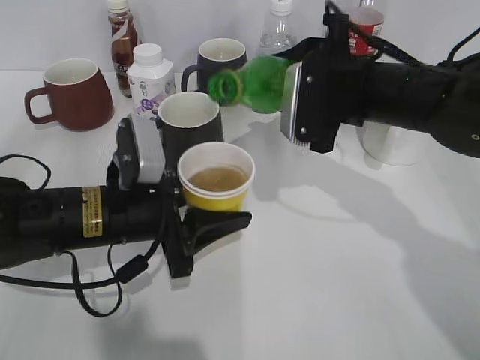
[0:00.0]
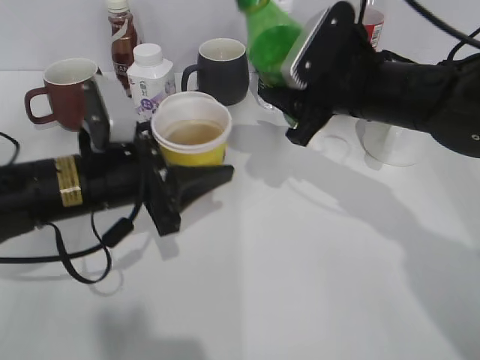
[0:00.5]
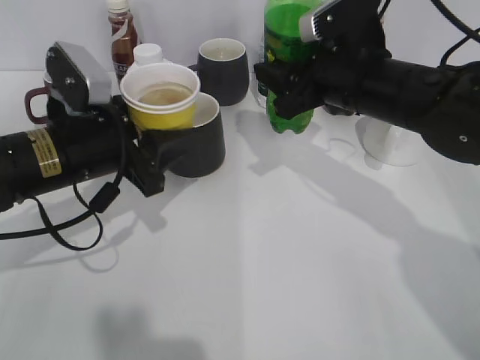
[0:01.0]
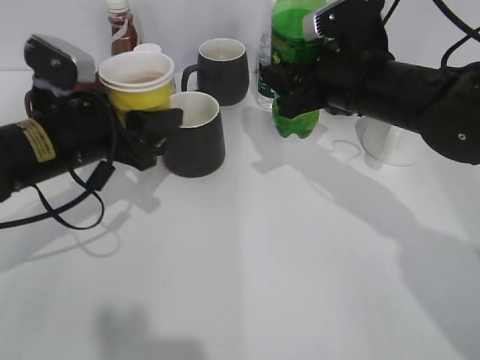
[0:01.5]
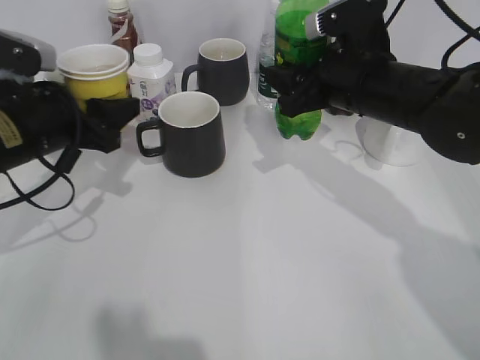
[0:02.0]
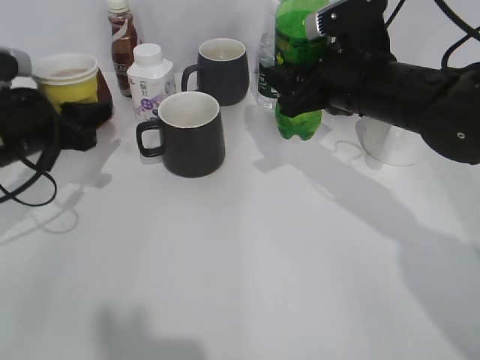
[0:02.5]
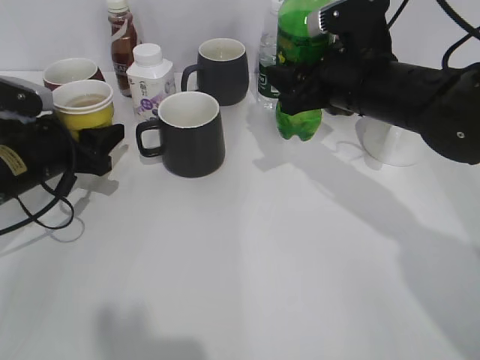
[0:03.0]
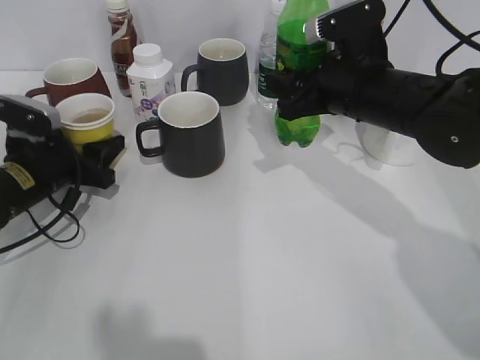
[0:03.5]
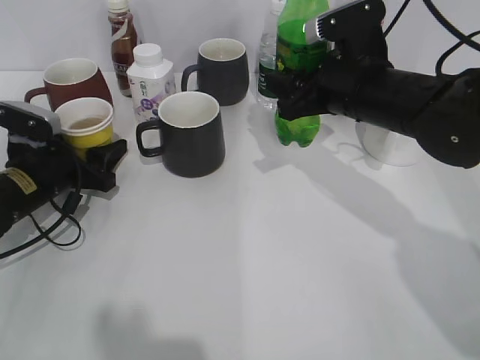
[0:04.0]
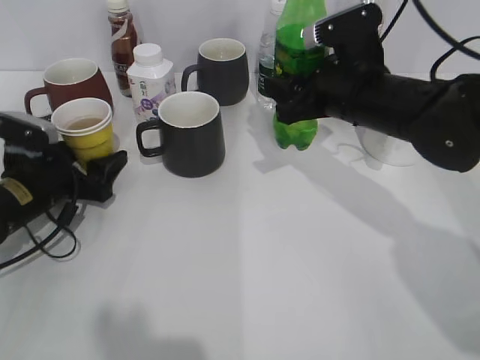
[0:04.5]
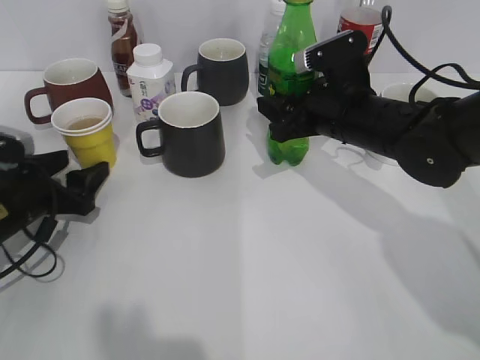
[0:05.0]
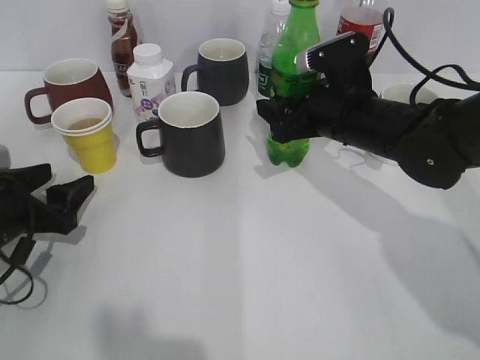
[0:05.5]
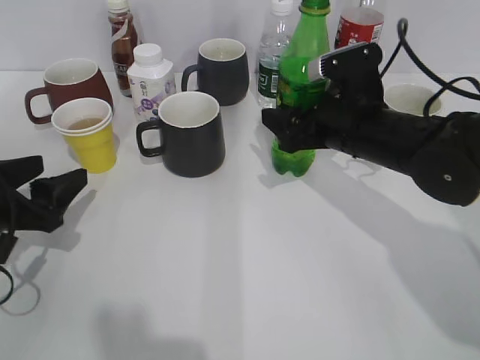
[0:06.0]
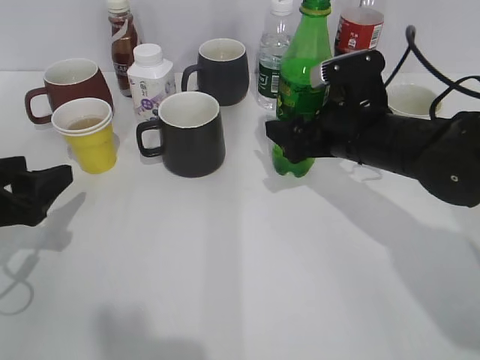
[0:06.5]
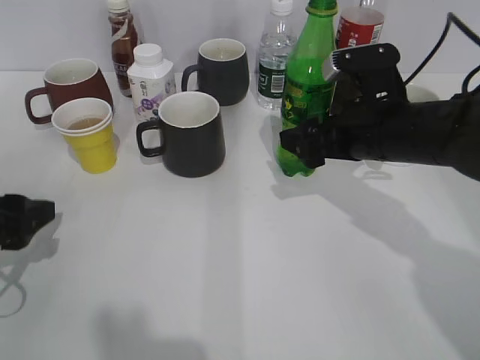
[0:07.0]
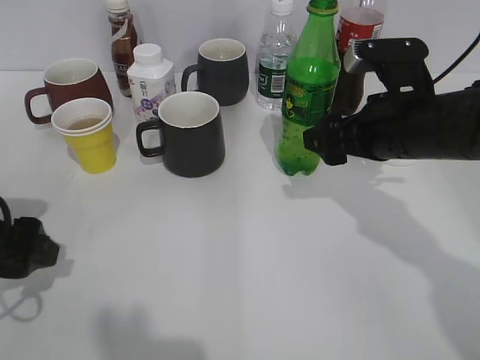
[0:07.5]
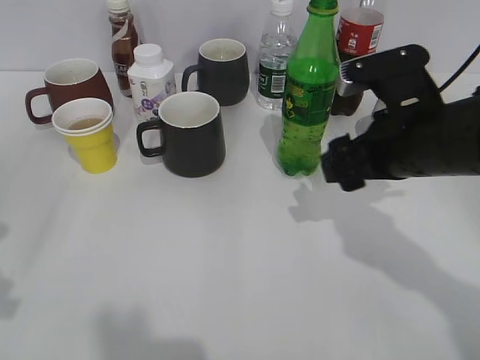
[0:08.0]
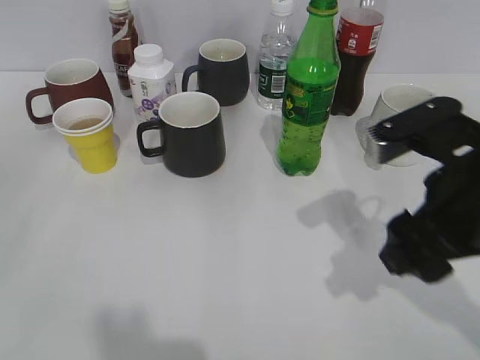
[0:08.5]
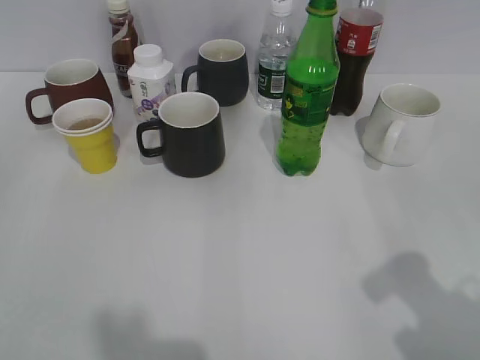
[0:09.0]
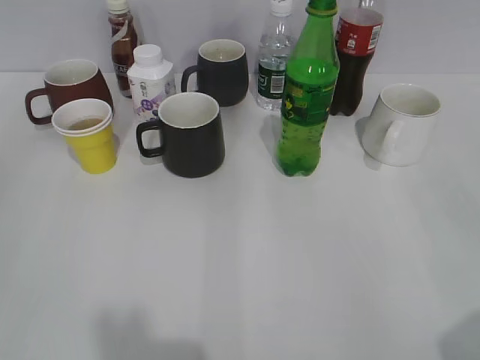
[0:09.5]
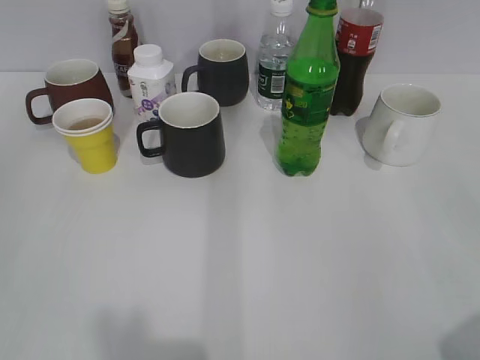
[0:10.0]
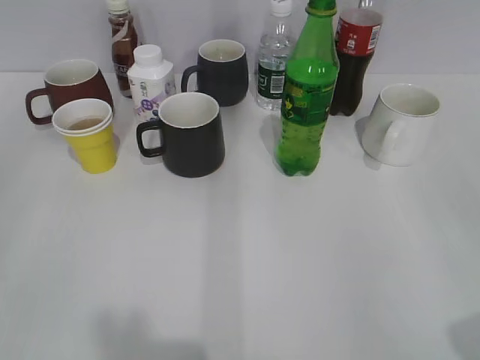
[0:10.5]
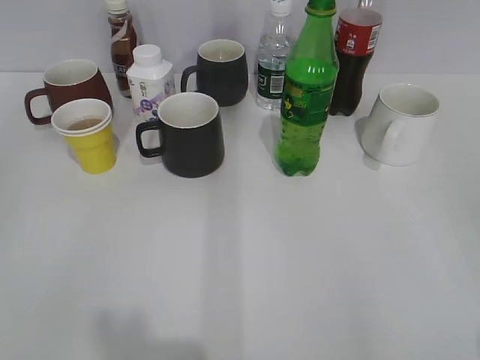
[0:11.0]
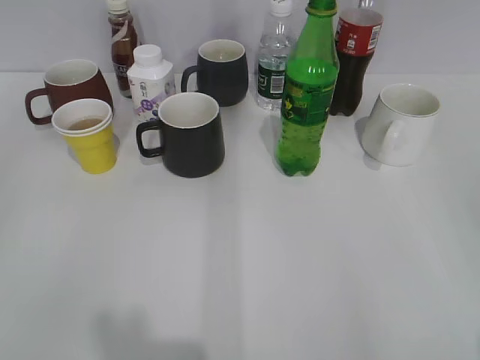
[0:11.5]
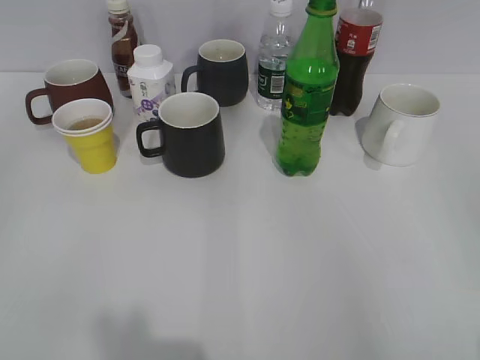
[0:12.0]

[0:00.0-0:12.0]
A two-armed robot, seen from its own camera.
Step, 0:00.0 to 0:03.5: Place the yellow paper cup on the table with left gripper.
Step, 0:04.0 to 0:07.0: Place the sprite bottle on the table with right gripper.
0:00.0 to 0:02.0: The left gripper travels to the left, upward and forward by roughly 10 cm.
0:02.0 to 0:04.0: The left gripper heads downward, covering roughly 10 cm, and opens its fingers.
0:04.0 to 0:06.0: The right gripper opens up. The left gripper shifts some 10 cm backward, and opens.
0:06.0 to 0:08.0: The right gripper is displaced backward by roughly 5 cm, and opens, then closes once more, while the left gripper travels upward and backward by approximately 15 cm.
0:08.0 to 0:10.0: The right gripper shifts approximately 30 cm backward and to the right, and closes.

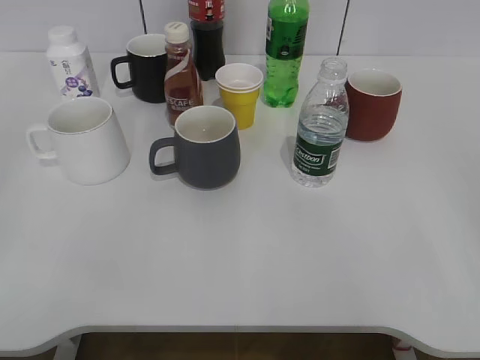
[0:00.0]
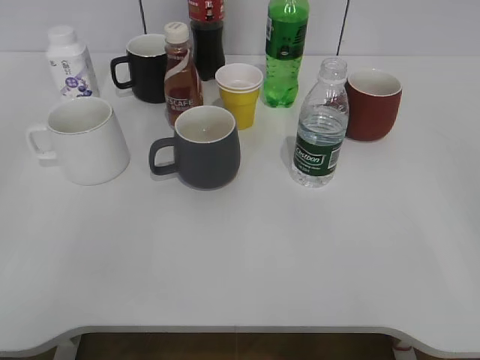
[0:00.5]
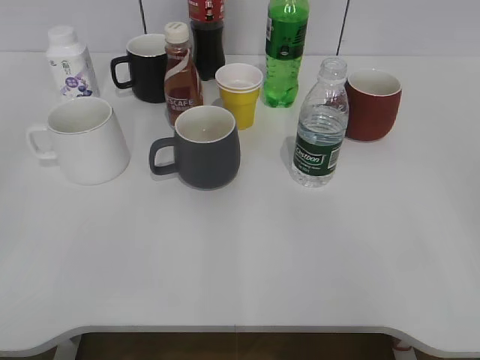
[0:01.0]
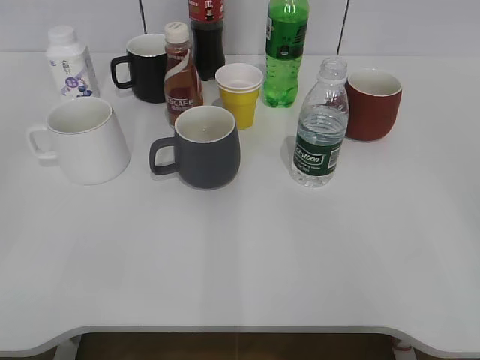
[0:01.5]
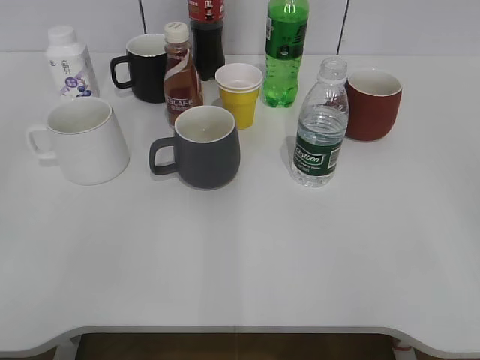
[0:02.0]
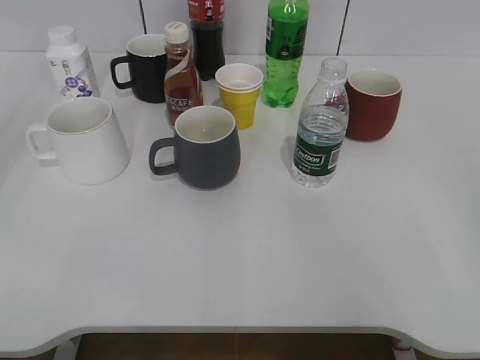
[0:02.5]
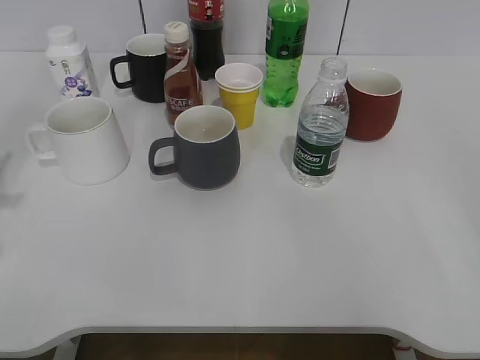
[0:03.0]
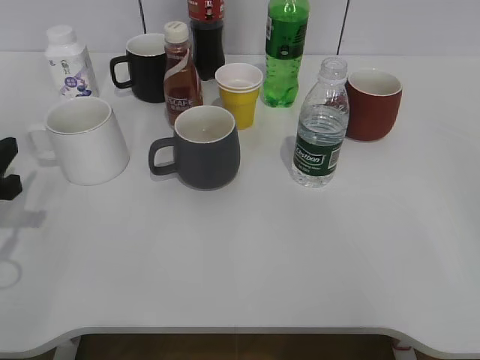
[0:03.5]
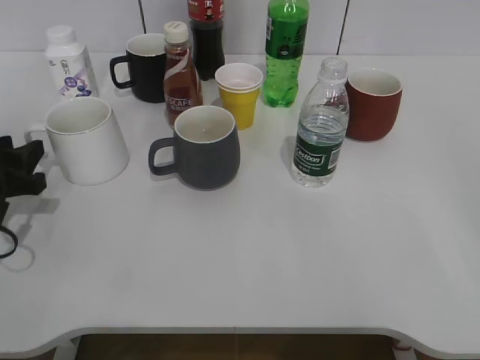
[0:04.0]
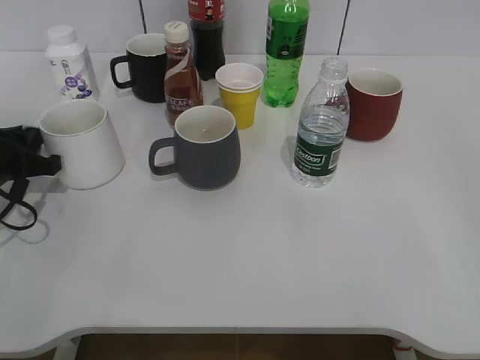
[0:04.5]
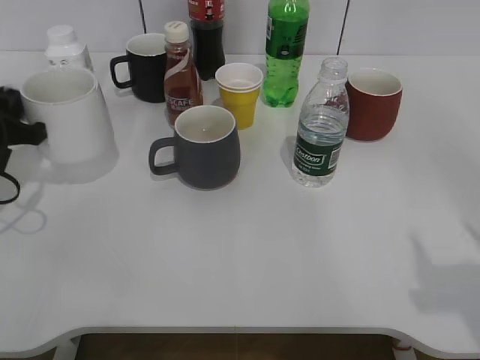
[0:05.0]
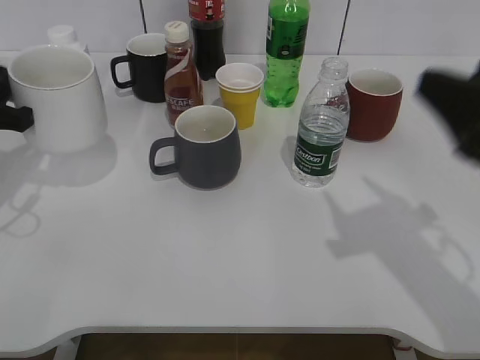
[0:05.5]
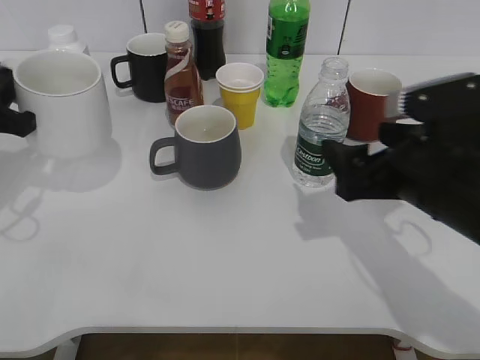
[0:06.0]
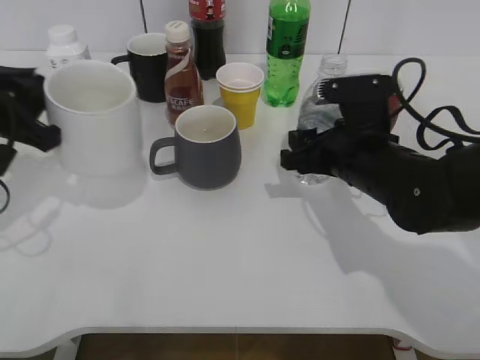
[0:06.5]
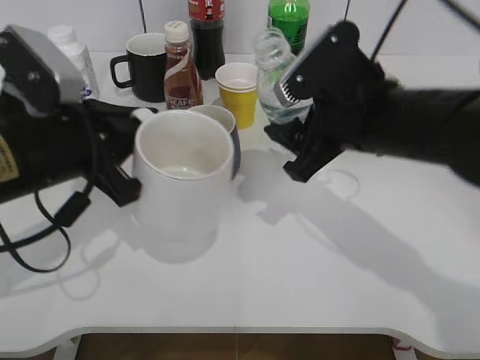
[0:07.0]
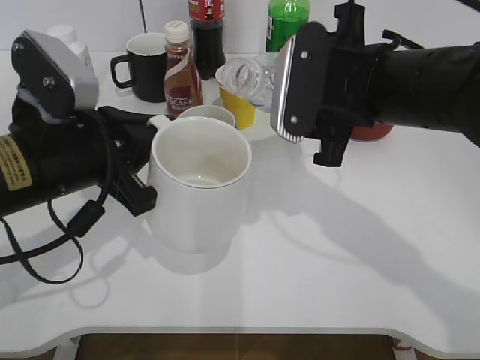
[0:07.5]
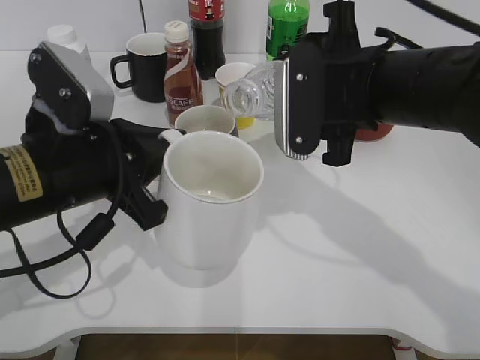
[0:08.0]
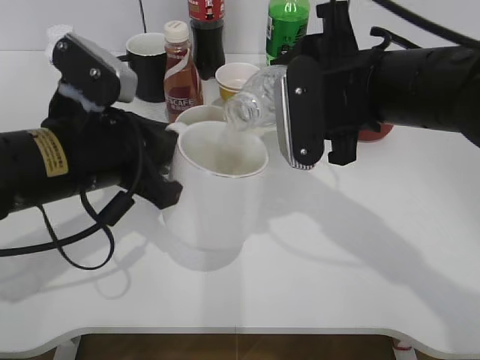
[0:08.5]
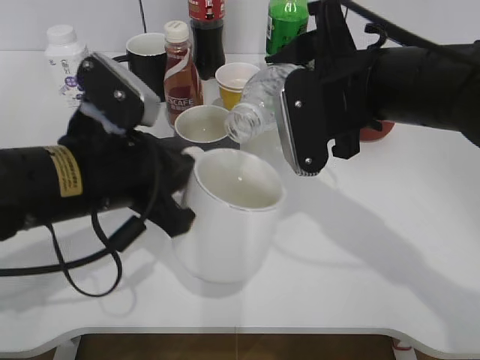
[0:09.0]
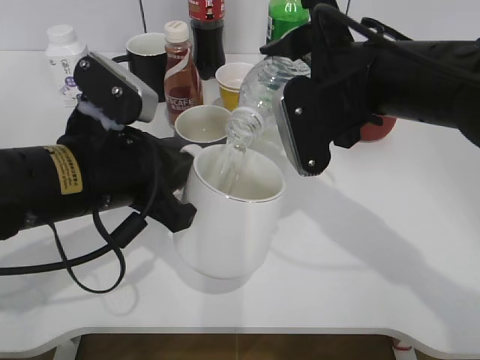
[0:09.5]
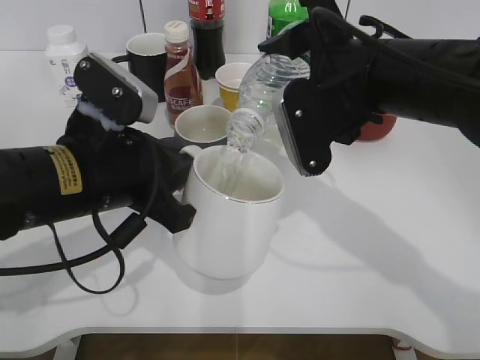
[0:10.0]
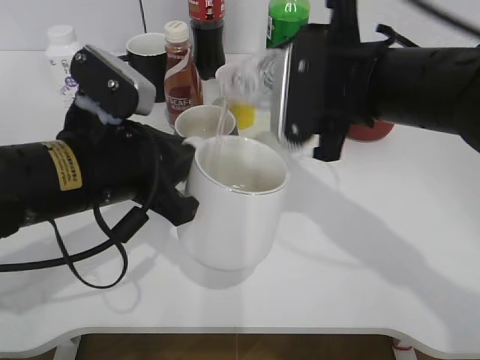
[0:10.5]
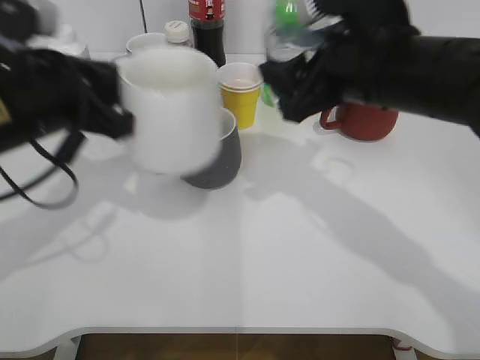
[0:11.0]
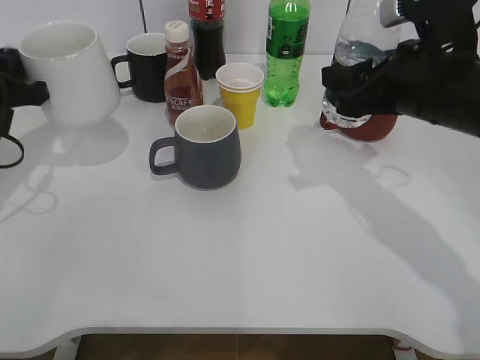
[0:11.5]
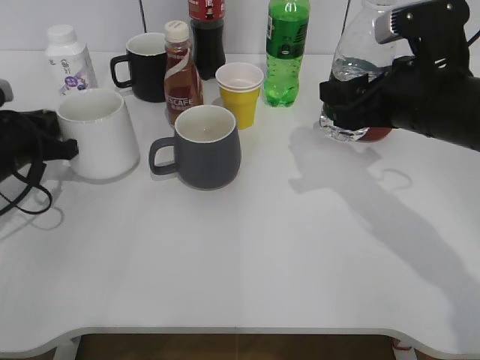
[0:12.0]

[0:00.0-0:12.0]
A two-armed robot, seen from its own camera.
Step, 0:02.0 to 0:04.5: Grasp the white cup with left gripper.
Step, 0:05.0 to 0:06.5: Grasp the bottle with water with right gripper.
Step, 0:07.0 to 0:10.5: Pour the water from bottle to cup with right gripper.
0:02.0 to 0:04.0: The left gripper moves forward and downward, about 30 cm.
0:04.0 to 0:06.0: The right gripper travels forward, to the left and downward by roughly 30 cm. Meanwhile the left gripper shifts approximately 10 cm upward, and closes up.
0:06.0 to 0:08.0: The left gripper goes about 15 cm to the right and backward. The right gripper travels to the left, upward and forward by some 10 cm, and closes up.
0:10.0 to 0:12.0: The left gripper moves to the left, forward and downward, some 20 cm, while the right gripper goes some 5 cm to the right.

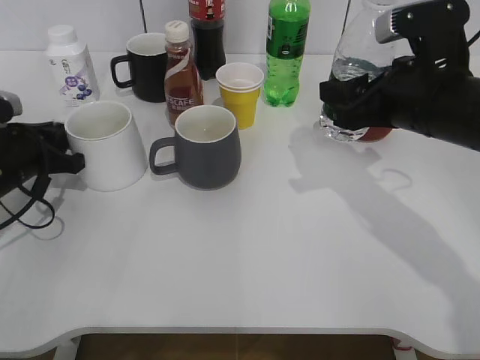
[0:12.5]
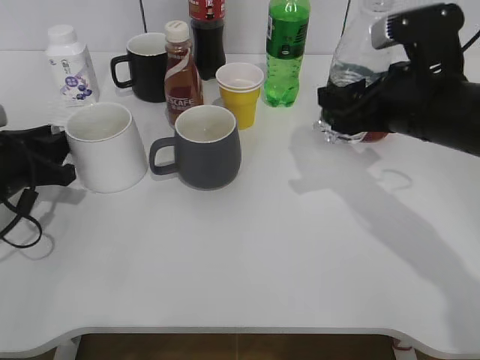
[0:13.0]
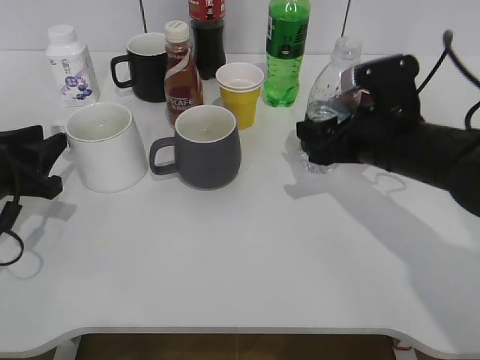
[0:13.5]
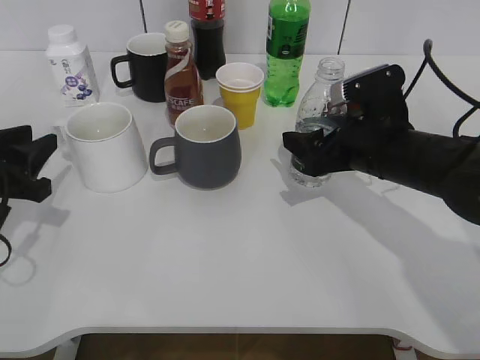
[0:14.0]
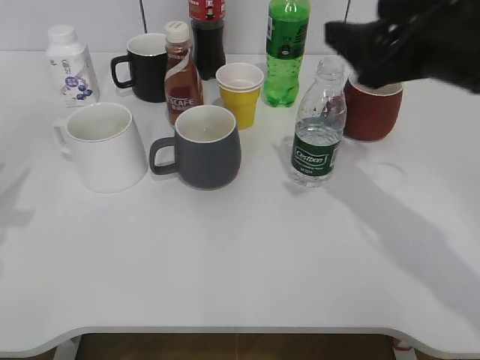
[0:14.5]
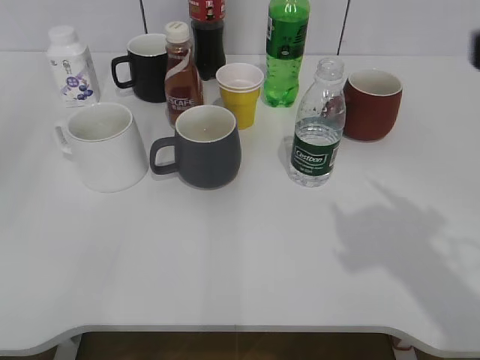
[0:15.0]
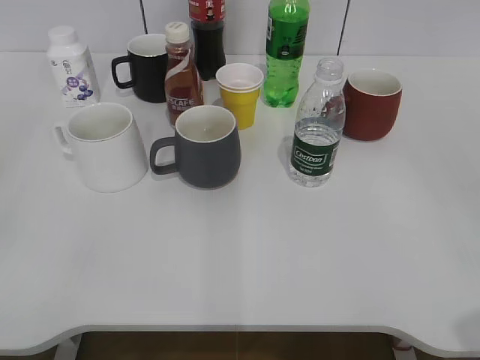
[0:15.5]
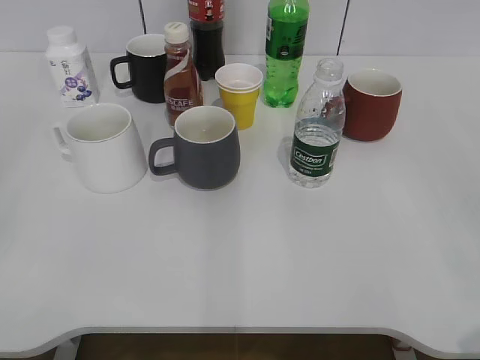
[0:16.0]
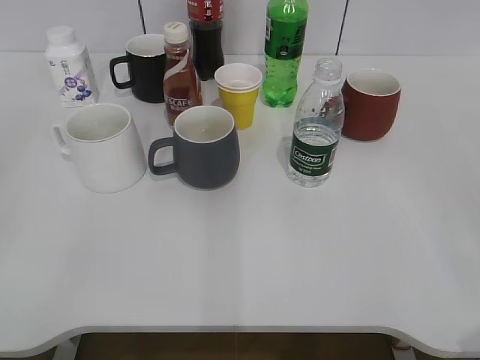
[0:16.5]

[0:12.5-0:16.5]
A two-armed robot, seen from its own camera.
Step, 0:12.5 to 0:14.0: Place the water bottle on the table with right gripper.
0:12.5 to 0:14.5: The left gripper is displaced upward and backward by about 15 cm, and opens its fingers, while the right gripper moves upward, some 5 cm, and opens.
0:14.5 to 0:16.5: The left gripper travels backward by approximately 20 cm. The right gripper goes roughly 30 cm backward and to the right.
